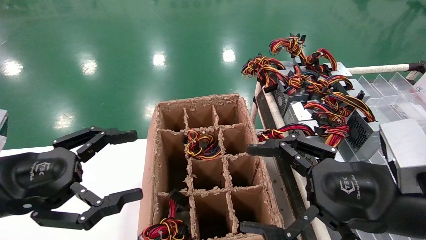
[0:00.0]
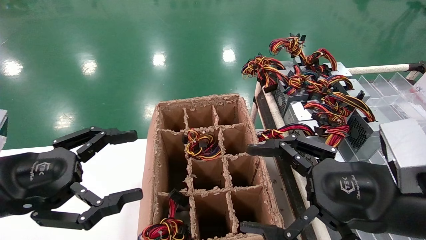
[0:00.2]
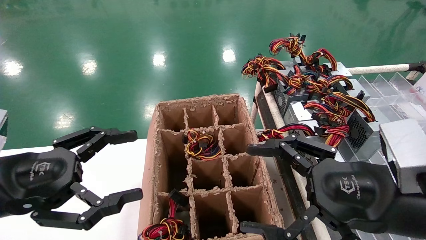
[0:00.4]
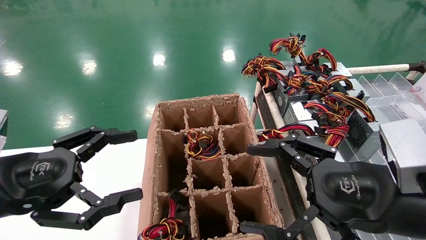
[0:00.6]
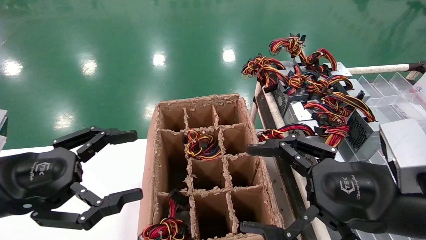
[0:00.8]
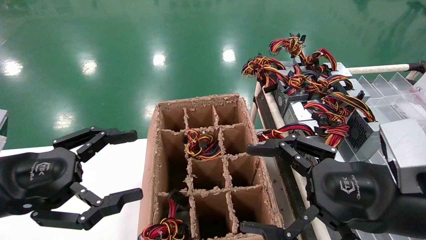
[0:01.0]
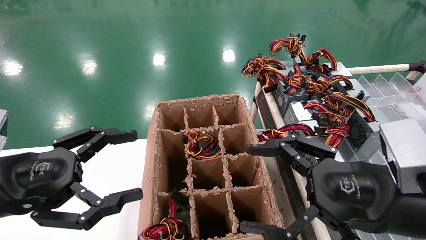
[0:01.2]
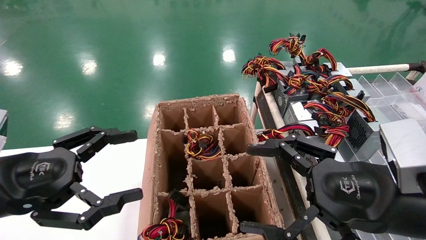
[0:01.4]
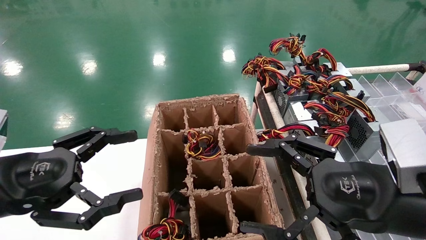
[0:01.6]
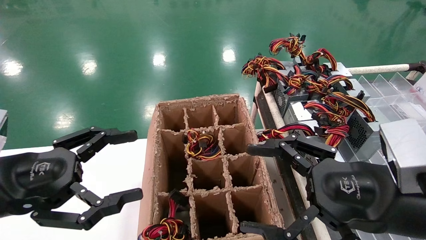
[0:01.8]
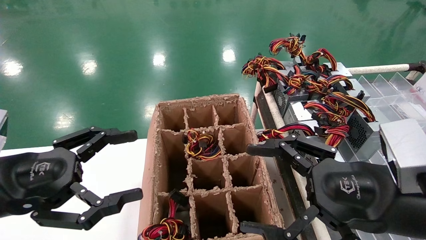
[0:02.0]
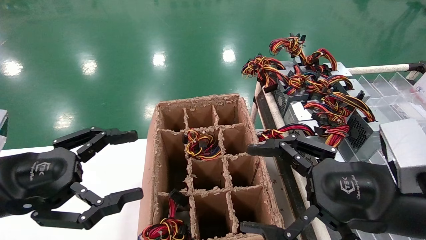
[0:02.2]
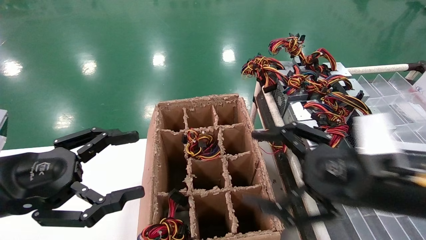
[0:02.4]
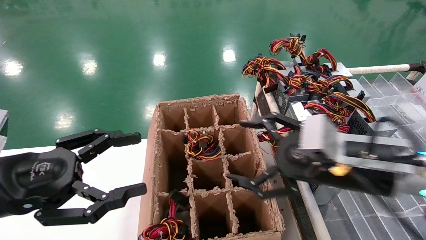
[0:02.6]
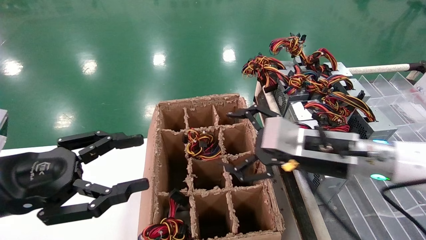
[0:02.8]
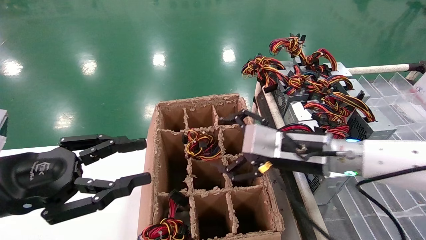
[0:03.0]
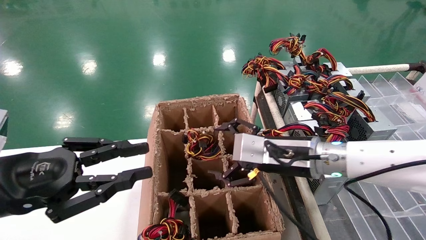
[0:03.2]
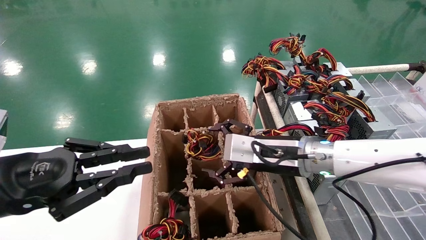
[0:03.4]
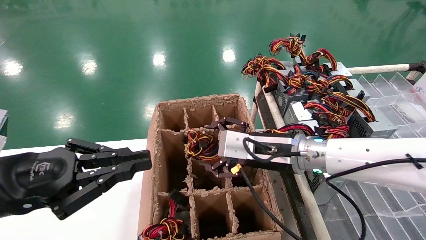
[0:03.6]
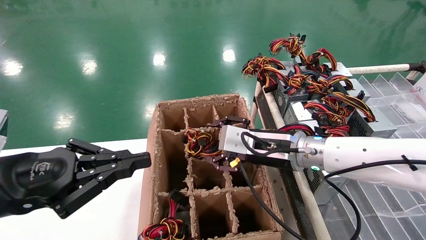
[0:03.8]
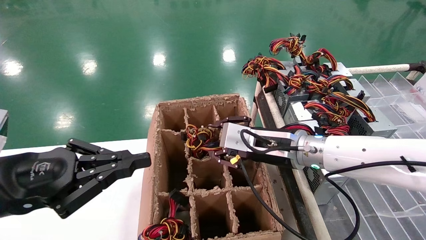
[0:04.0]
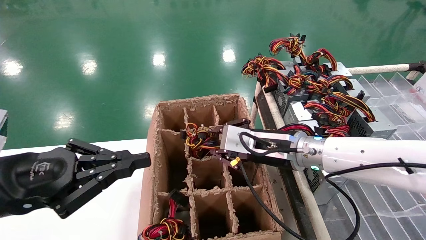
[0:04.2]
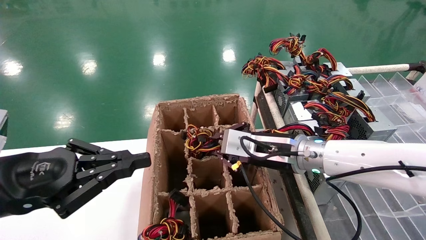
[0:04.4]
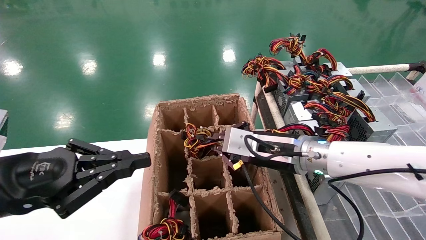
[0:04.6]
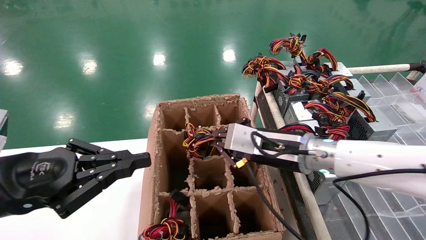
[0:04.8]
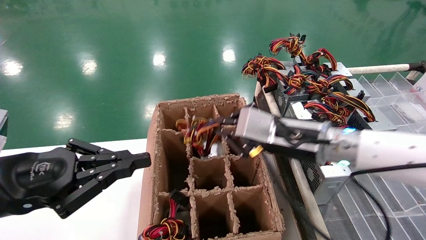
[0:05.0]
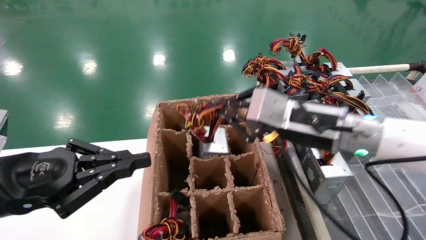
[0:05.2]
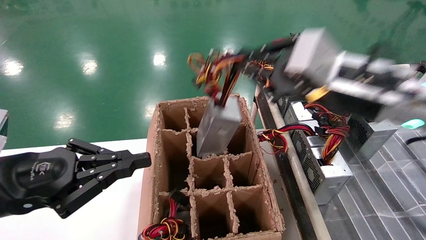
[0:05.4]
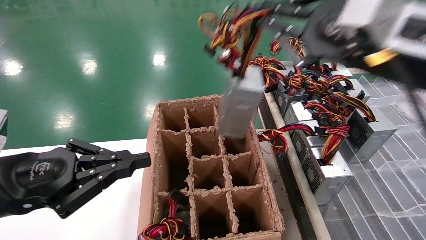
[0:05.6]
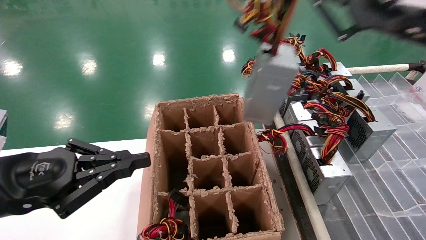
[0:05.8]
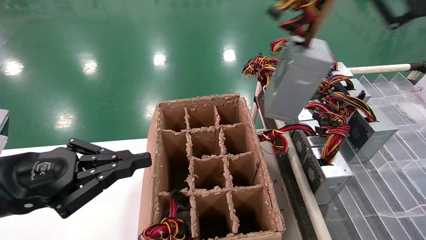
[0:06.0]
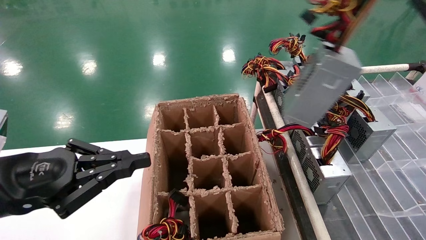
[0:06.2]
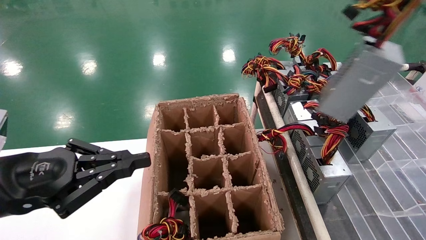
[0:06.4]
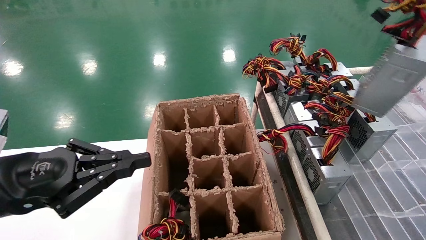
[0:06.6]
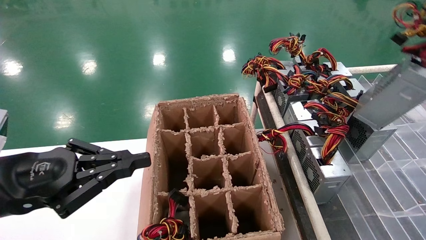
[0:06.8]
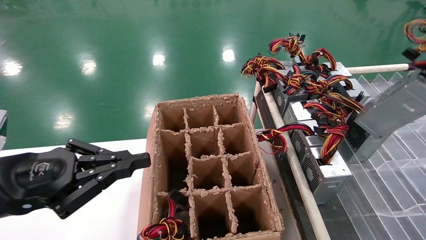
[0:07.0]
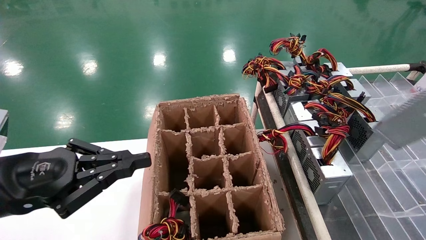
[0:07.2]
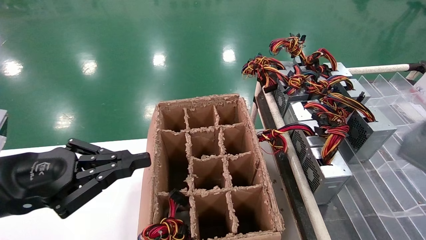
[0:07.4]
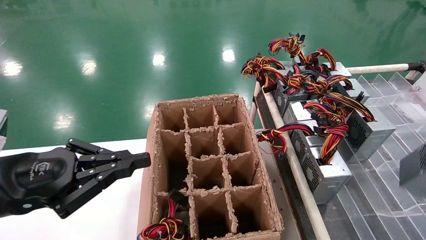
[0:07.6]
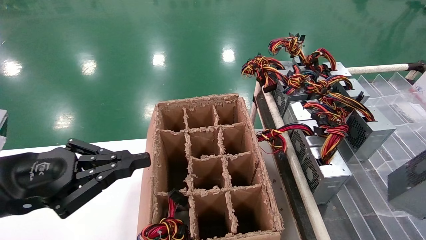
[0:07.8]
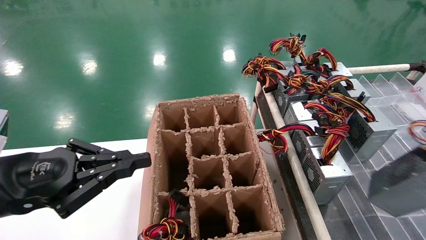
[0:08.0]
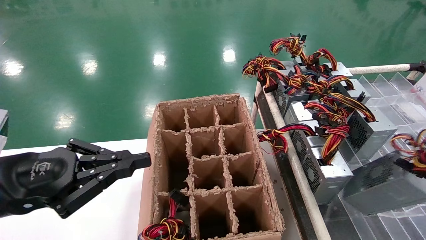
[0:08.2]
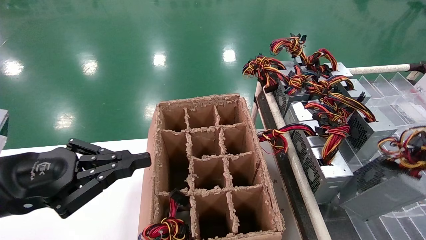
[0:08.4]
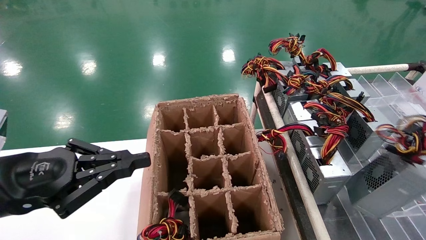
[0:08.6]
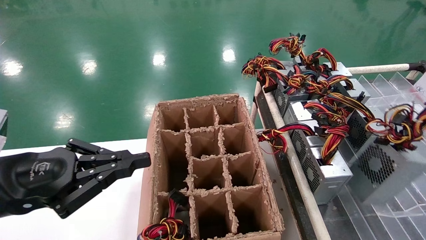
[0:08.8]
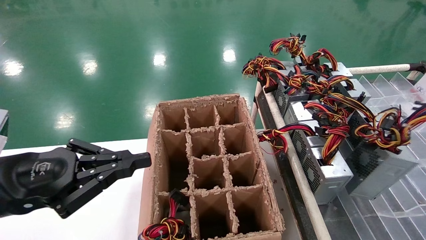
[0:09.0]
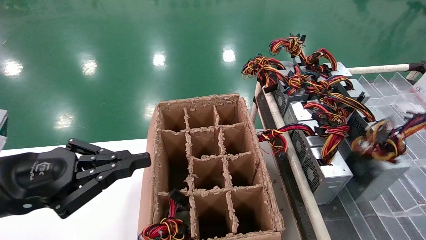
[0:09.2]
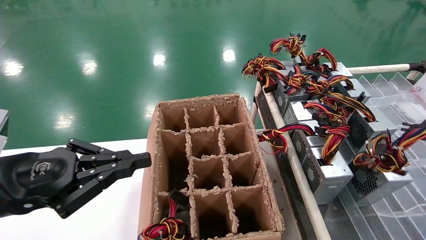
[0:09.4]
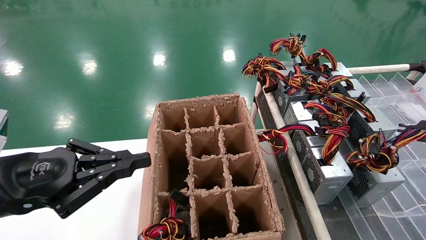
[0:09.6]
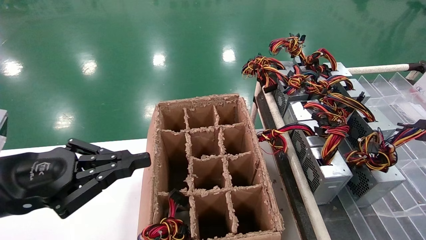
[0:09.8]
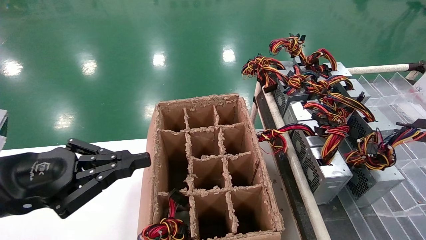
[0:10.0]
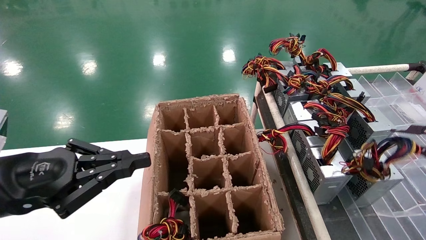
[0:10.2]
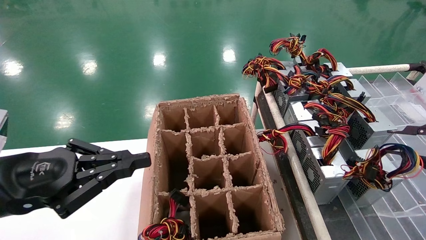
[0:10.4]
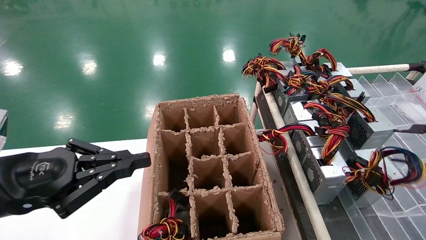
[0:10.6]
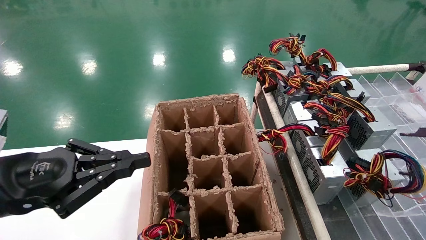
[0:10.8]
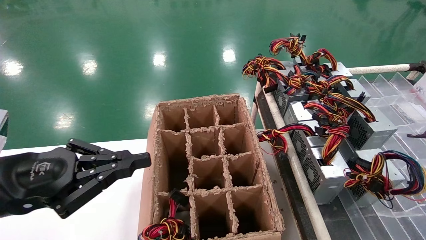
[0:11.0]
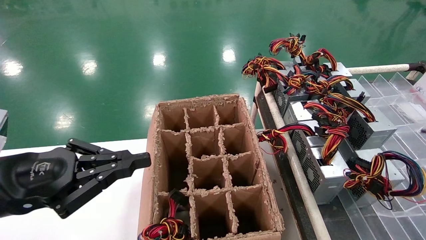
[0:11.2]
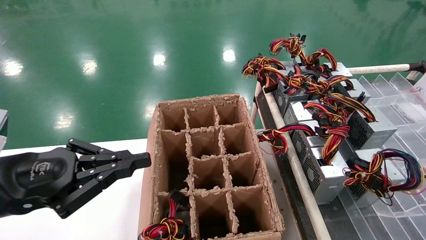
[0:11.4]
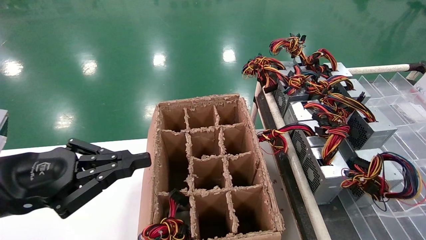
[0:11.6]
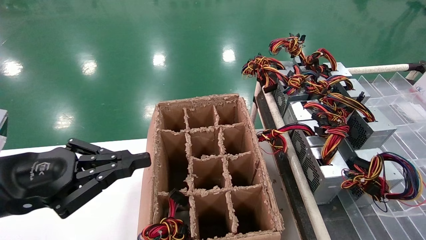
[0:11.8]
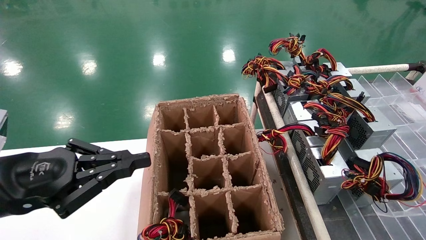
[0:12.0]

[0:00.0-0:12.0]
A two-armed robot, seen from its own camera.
Step, 0:02.6 to 0:04.6: Grab the main unit power supply from the containment box.
Step, 0:04.8 to 0:10.6: Place the main unit power supply in the designated area.
0:00.0 to 0:01.6: Neither gripper changes place.
0:01.6 to 0:03.0: The left gripper closes its fingers, while the right gripper travels forward and to the left by about 15 cm.
0:03.0 to 0:04.4: The left gripper closes up; the right gripper closes up.
0:04.4 to 0:06.0: The right gripper is displaced upward, backward and to the right by about 30 cm.
0:06.0 to 0:07.6: The right gripper is displaced to the right and backward by about 25 cm.
0:07.6 to 0:09.0: The right gripper heads forward, covering some 10 cm.
0:09.0 to 0:10.4: The grippers make only small movements.
0:10.4 to 0:12.0: The right gripper opens up.

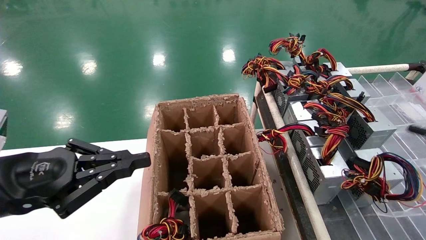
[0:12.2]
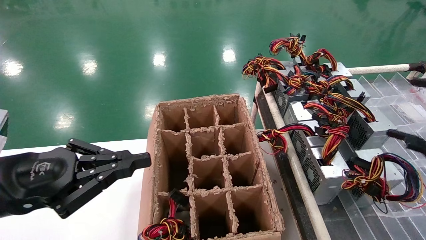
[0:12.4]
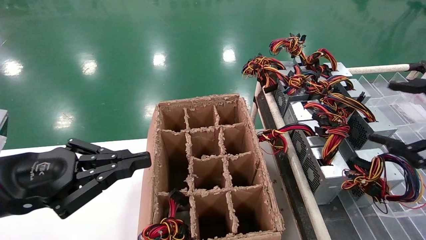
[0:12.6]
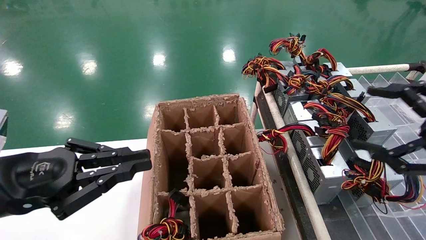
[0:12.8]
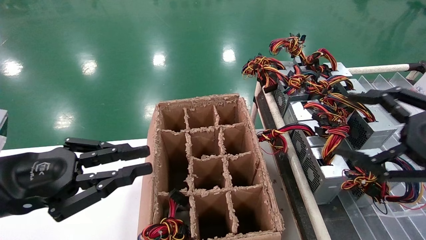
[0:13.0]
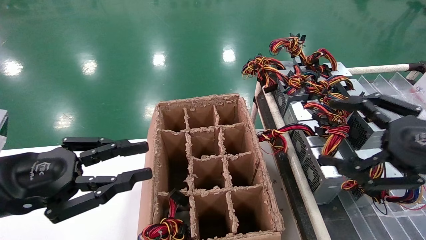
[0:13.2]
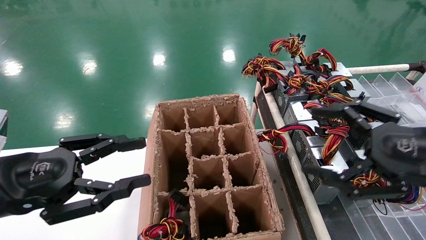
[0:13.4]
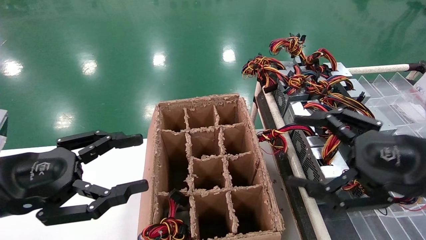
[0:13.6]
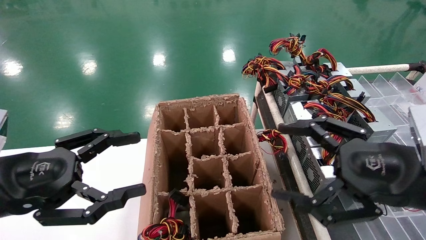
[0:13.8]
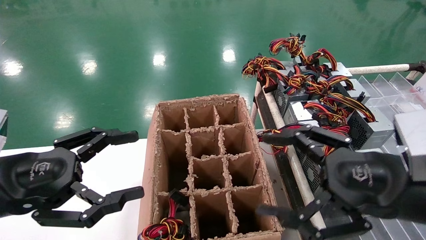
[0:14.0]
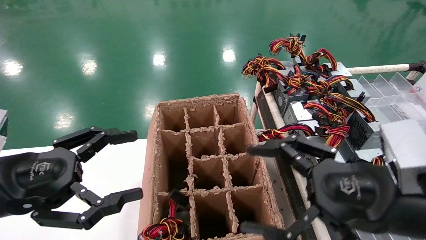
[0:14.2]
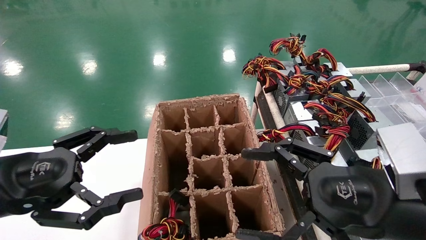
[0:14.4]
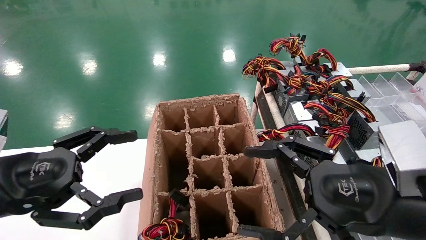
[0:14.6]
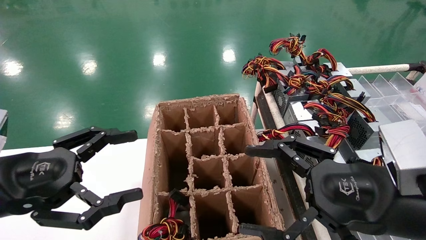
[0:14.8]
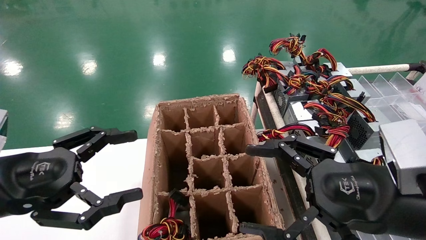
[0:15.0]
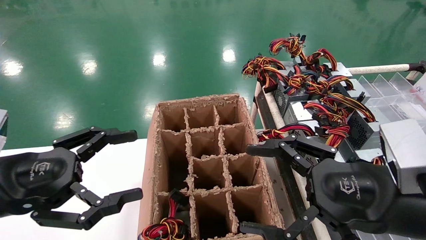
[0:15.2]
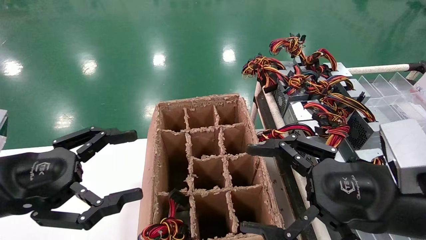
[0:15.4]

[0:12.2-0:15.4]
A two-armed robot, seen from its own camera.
0:12.2 to 0:13.8: The right gripper is displaced to the left by about 20 cm. The left gripper opens.
0:13.8 to 0:15.4: The grippers move only a little.
